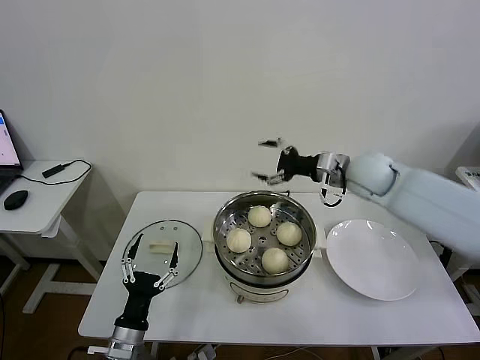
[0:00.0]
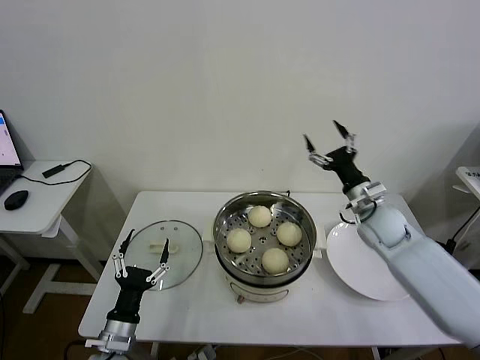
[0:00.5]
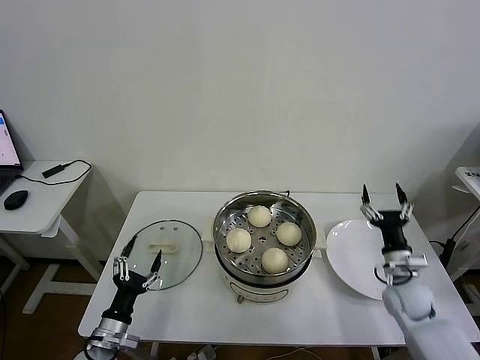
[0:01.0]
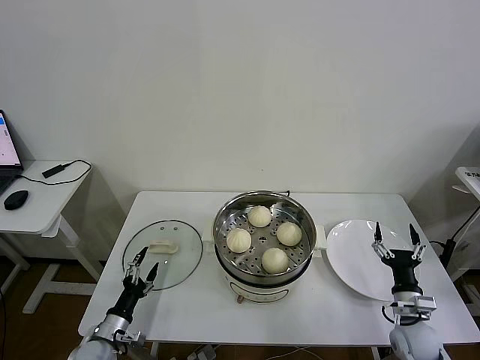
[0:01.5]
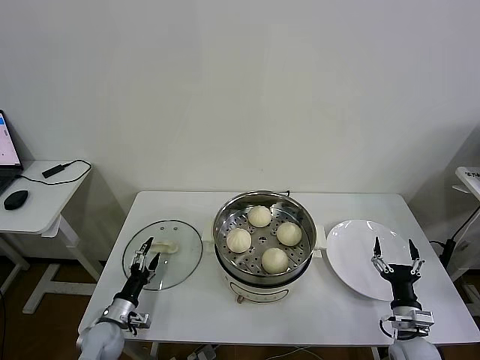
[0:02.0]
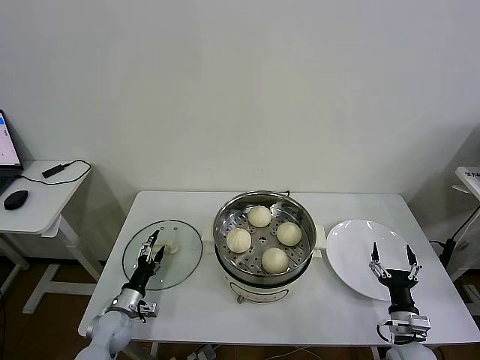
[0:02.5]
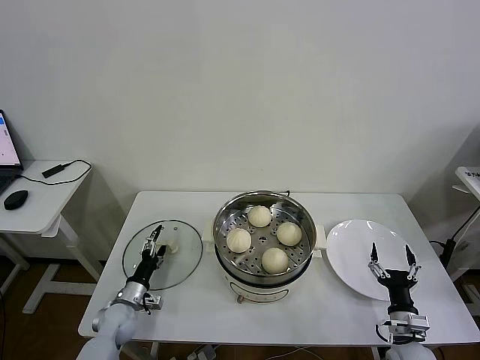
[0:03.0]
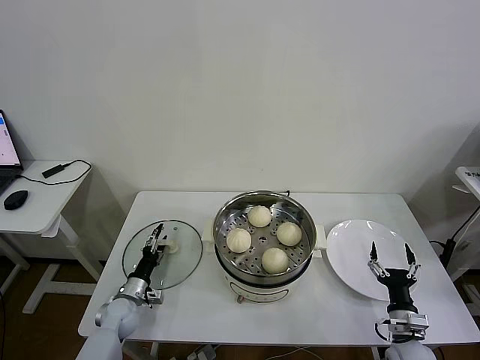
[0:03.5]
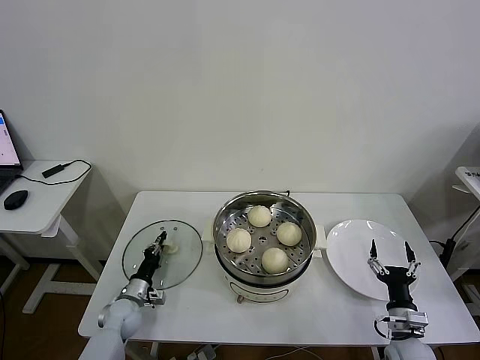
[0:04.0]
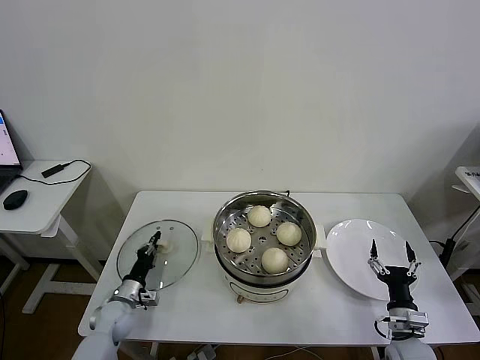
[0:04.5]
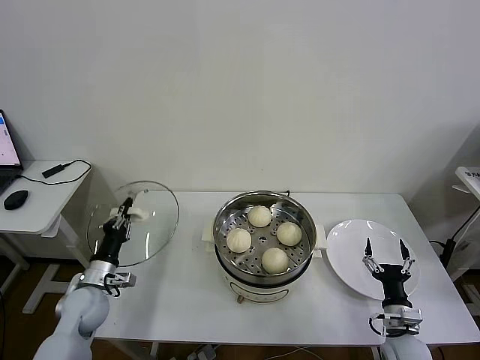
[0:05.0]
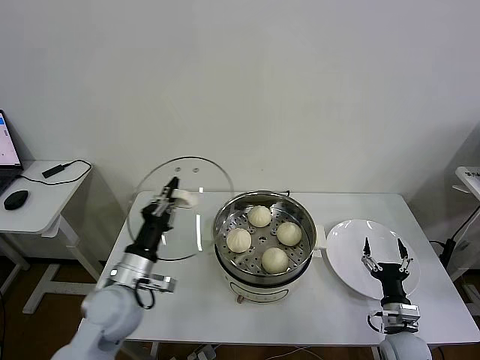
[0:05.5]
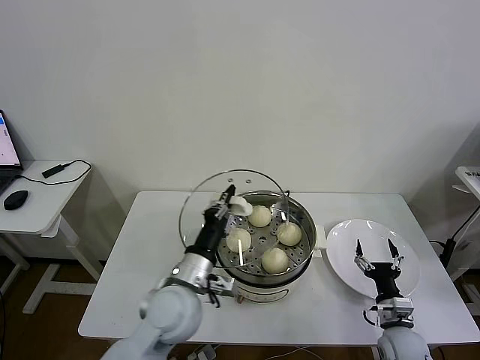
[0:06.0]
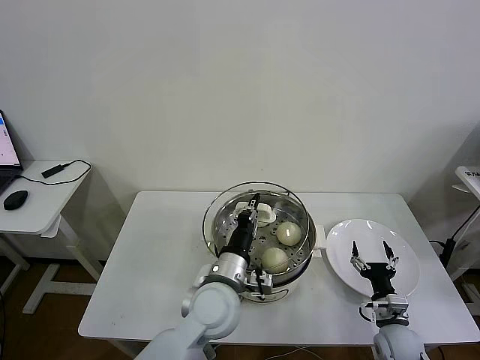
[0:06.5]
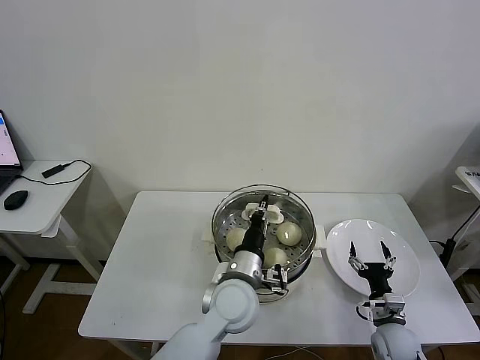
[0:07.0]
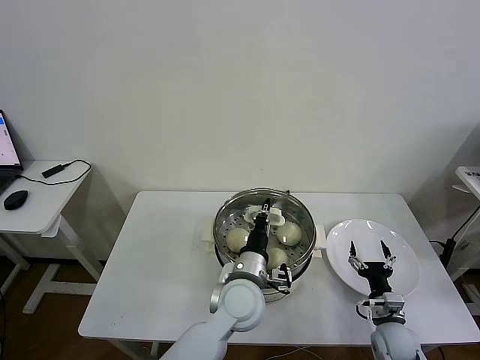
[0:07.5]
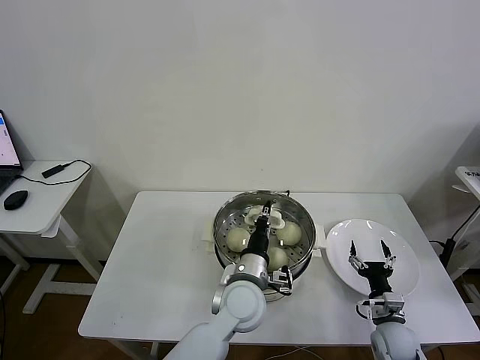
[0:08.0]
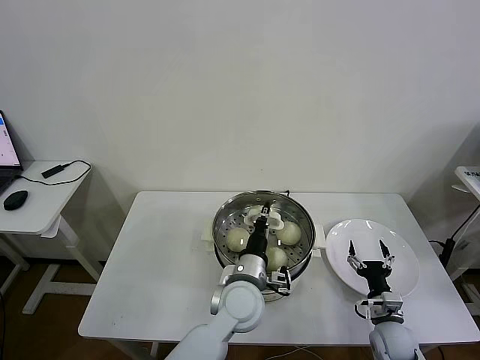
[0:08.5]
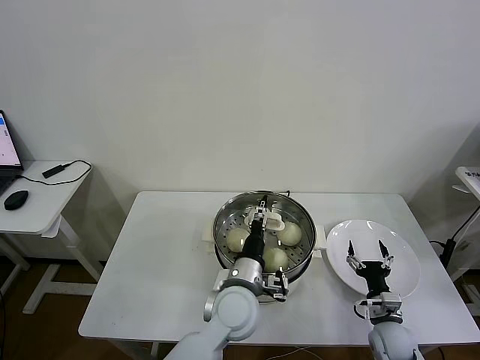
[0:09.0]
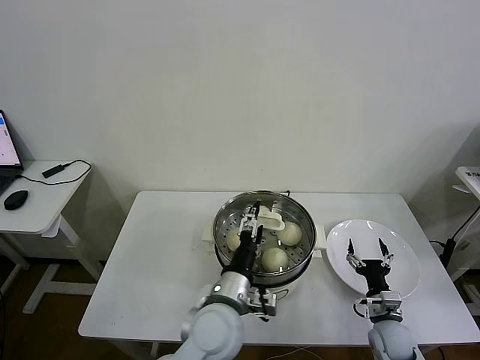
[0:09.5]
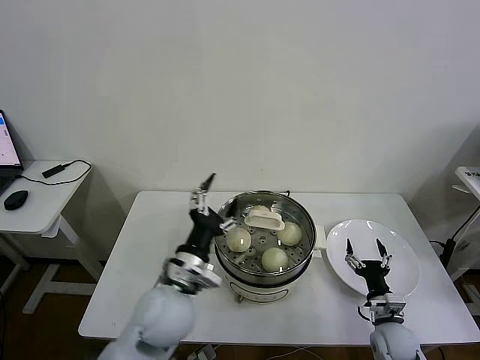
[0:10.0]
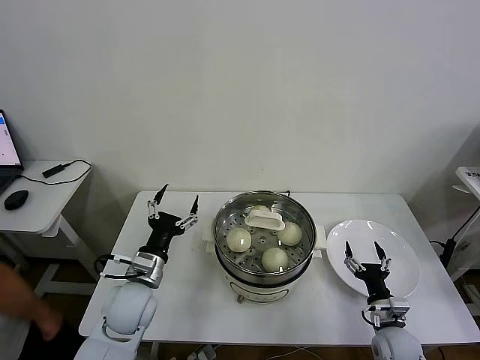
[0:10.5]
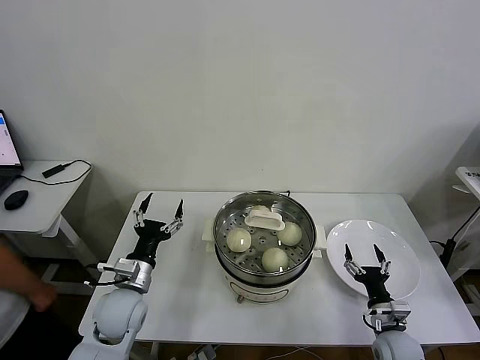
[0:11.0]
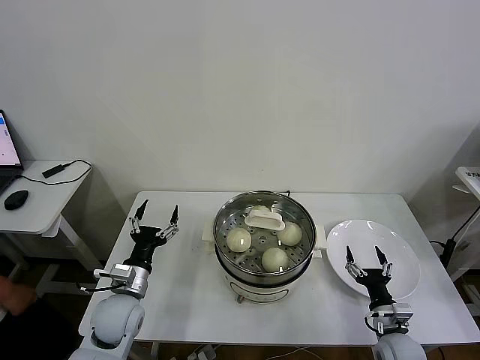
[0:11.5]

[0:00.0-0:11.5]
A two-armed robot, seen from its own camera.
Task of the whole recording: take steamed baozi put them in steamer then cover it.
Step, 0:00.0 to 0:04.0: Grasp the pot lid with left gripper.
Step, 0:04.5 to 0:08.5: Place the pot lid on the steamer with left gripper.
0:00.0 to 0:02.0: The right gripper travels downward and backward by about 40 cm. Meanwhile the left gripper shifts some 15 cm downward, to the left and forward.
0:02.0 to 0:04.0: The left gripper moves forward, about 5 cm, and closes up.
0:04.0 to 0:06.0: The left gripper travels upward and to the right by about 30 cm.
0:06.0 to 0:07.5: The left gripper heads to the right, covering some 15 cm.
0:07.5 to 0:09.5: The left gripper shifts roughly 5 cm backward, and opens.
0:09.5 to 0:11.5: The left gripper goes some 20 cm to the left.
